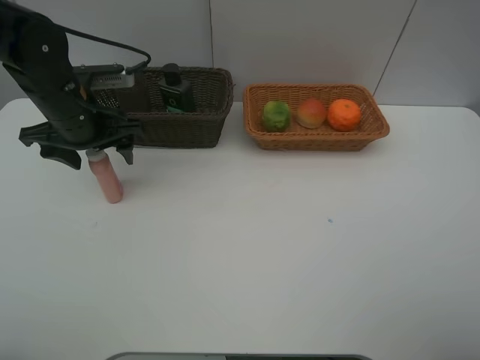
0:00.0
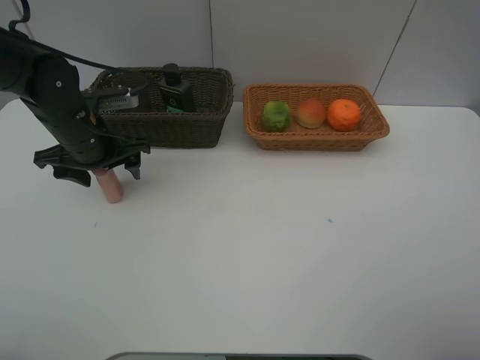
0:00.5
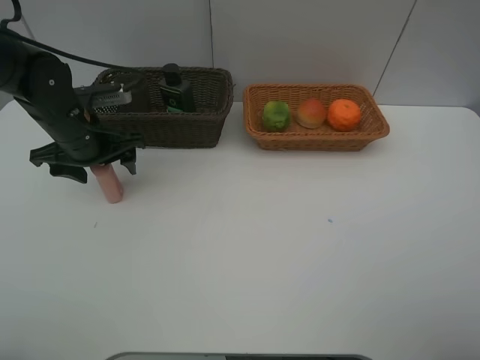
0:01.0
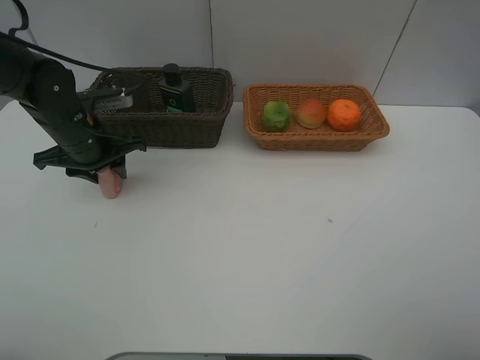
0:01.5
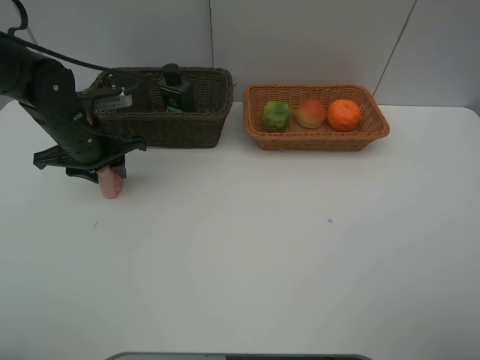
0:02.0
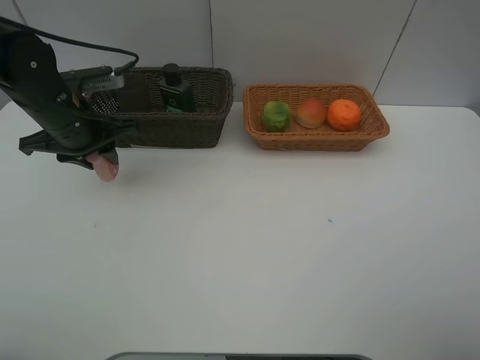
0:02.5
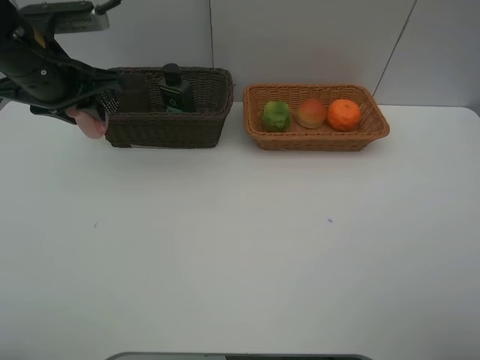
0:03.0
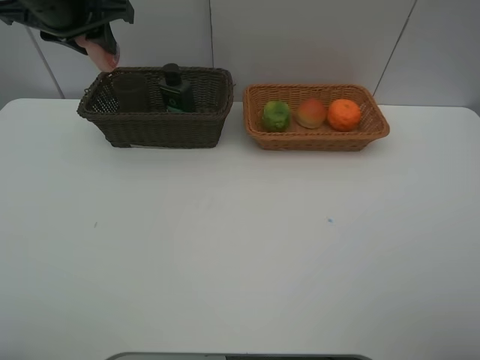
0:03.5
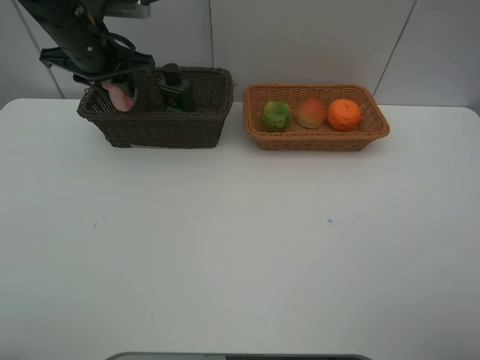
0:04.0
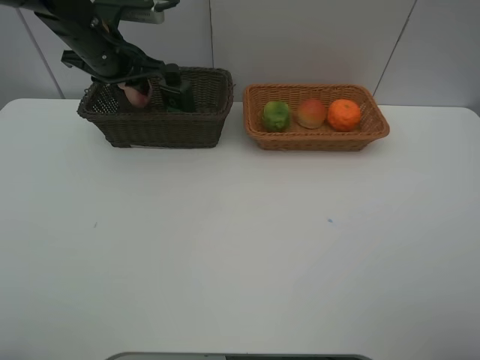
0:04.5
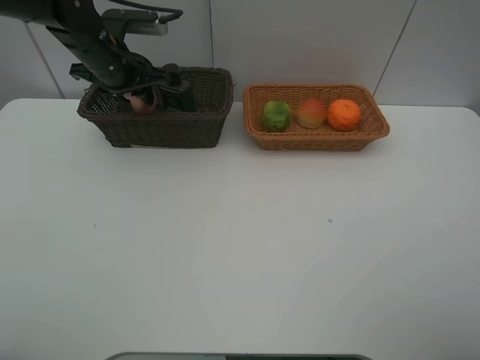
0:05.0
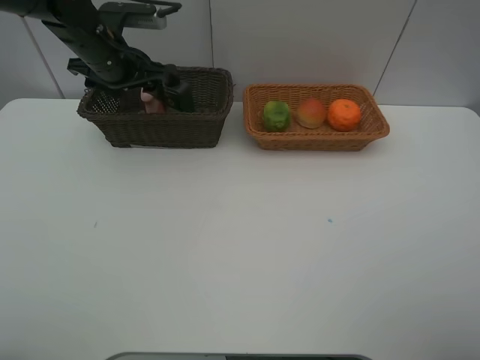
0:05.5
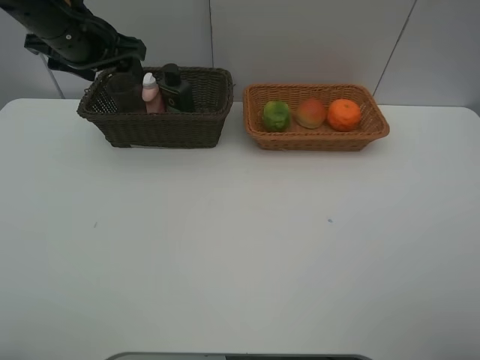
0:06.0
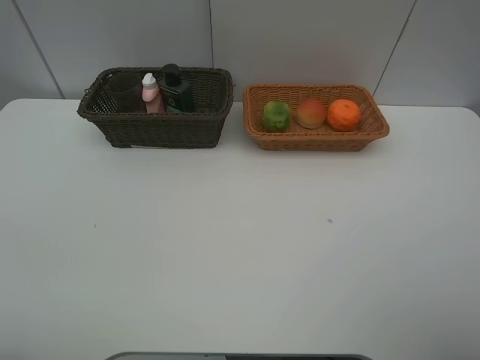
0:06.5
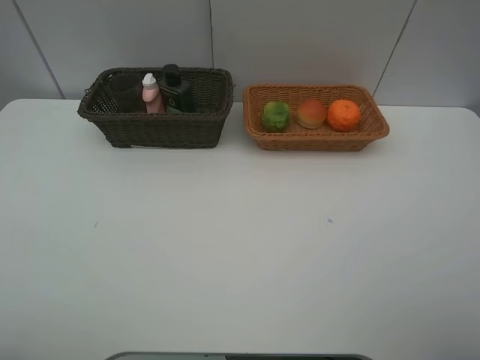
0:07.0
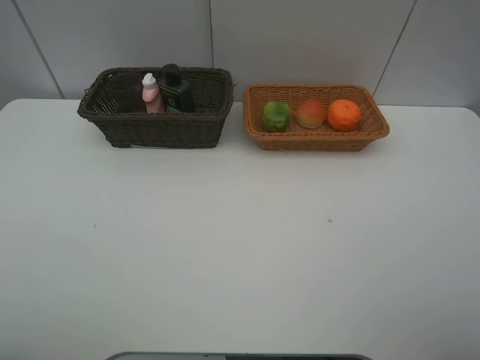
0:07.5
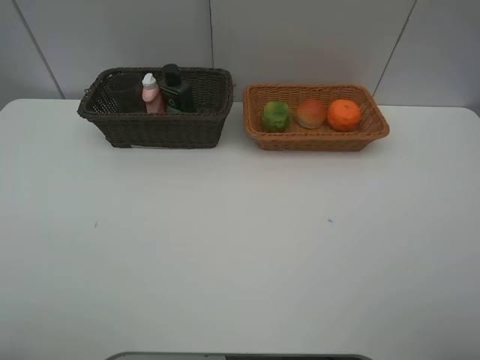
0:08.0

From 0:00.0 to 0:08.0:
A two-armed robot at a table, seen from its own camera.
Task of the whole recording: place multiple objects separately in different baskets.
From 0:00.0 to 0:02.0: The left gripper closes its fingers.
From 0:02.0 to 0:04.0: The left gripper travels upward and forward by about 10 cm.
From 0:04.0 to 0:06.0: The left gripper shifts by approximately 5 cm, and opens.
From 0:06.0 to 0:08.0: The left gripper is displaced backward by about 35 cm.
